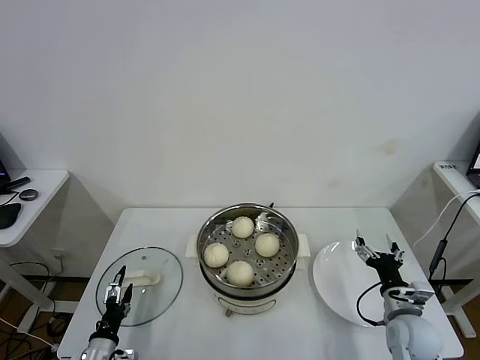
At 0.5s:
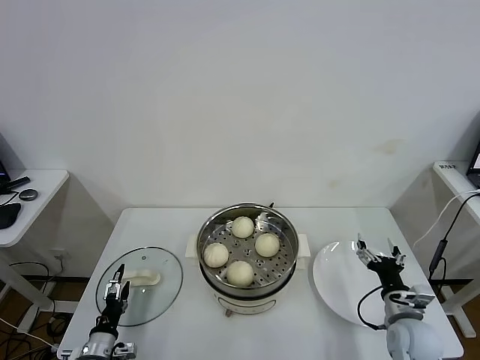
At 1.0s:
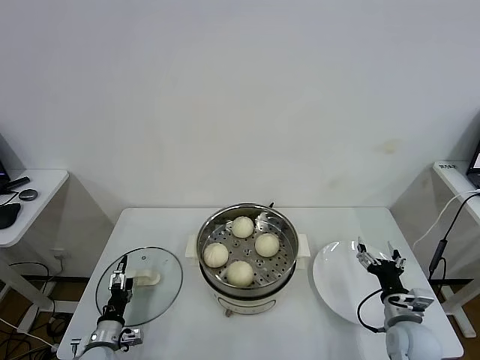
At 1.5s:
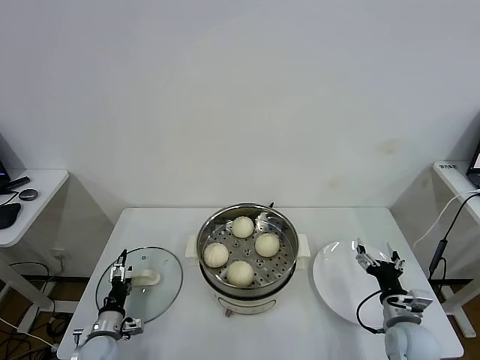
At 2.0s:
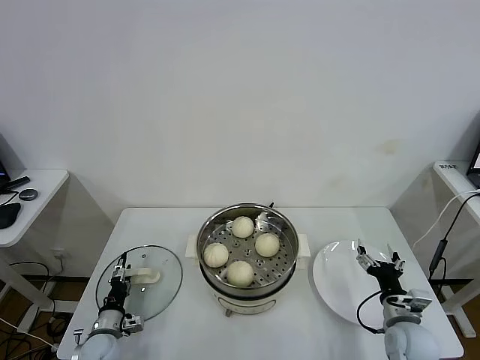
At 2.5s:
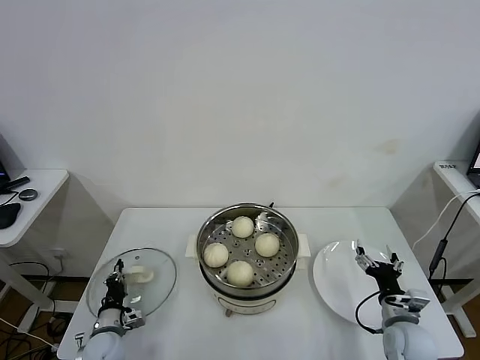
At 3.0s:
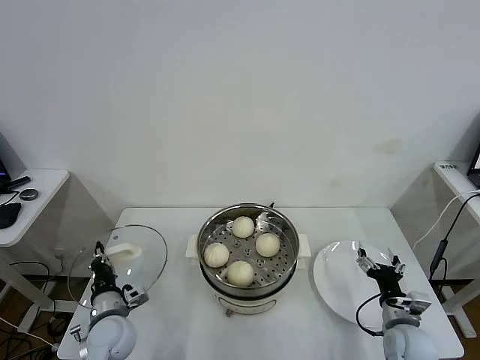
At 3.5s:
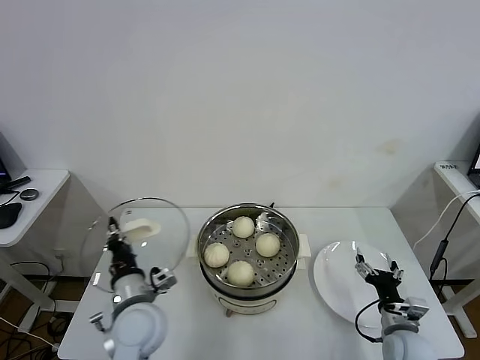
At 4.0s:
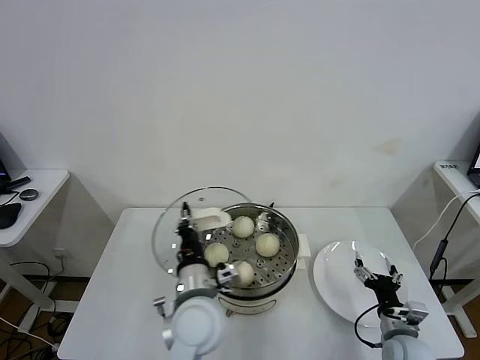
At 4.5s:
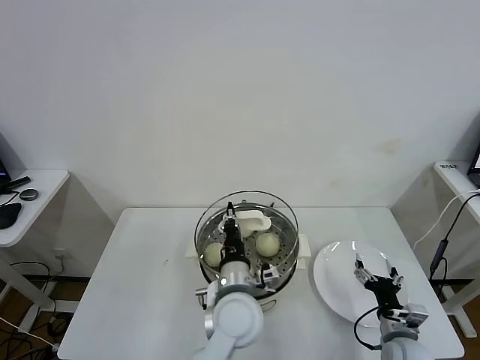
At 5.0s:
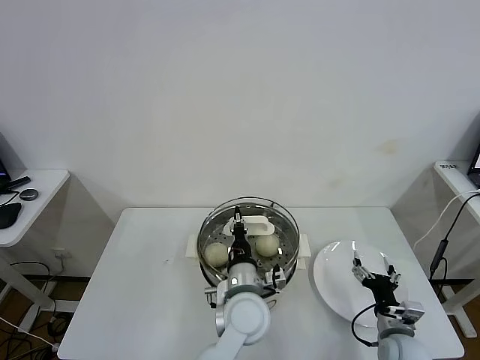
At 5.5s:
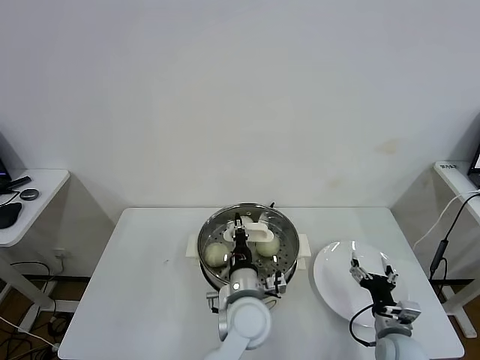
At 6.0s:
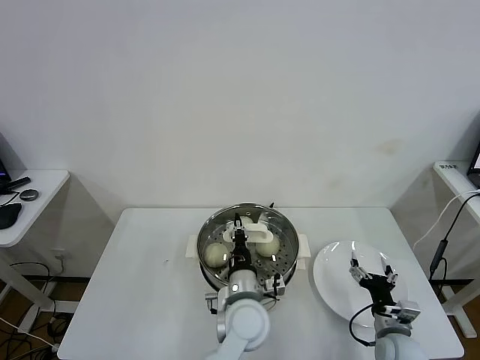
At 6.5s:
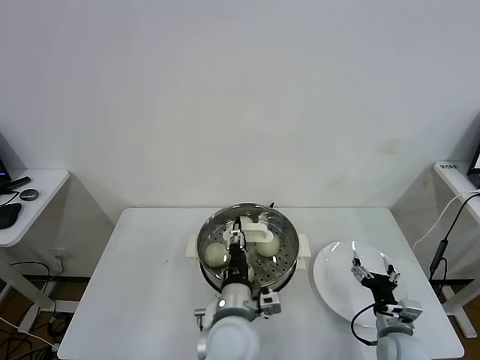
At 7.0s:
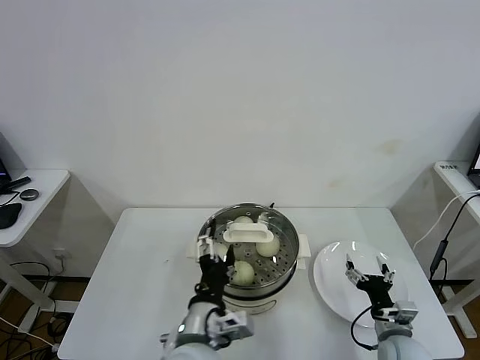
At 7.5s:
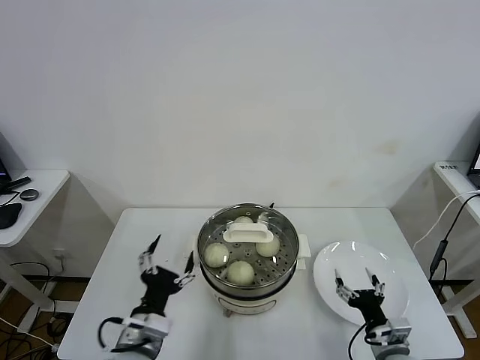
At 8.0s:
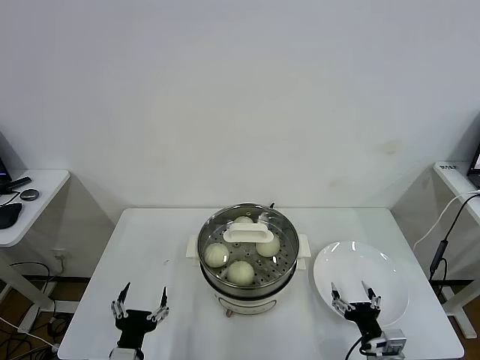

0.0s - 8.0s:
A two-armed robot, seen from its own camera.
Task of the whole recording: take steamed baozi put them in steamer.
Step, 0.0s - 2.5s: Grasp the pot lid with left gripper.
Step, 3.0s - 7.0s: Place the pot lid on the steamer with left gripper.
0.0s - 2.0s: The left gripper is displaced forward by roughly 10 cm.
2.0s - 4.0s: The left gripper travels to the right and upward by roughly 35 cm, and closes its fingers.
4.0s - 6.0s: The left gripper goes roughly 10 cm to the right and downward.
6.0s - 8.0s: The right gripper is displaced backward by some 5 cm; the left gripper goes some 30 cm to the left and backward, and opens up.

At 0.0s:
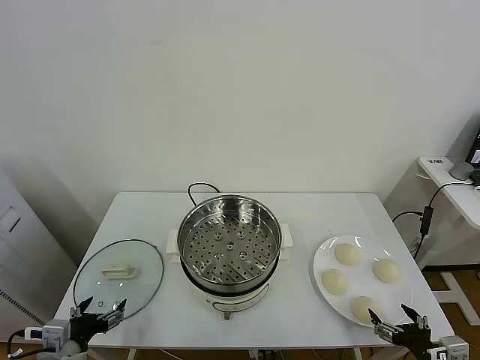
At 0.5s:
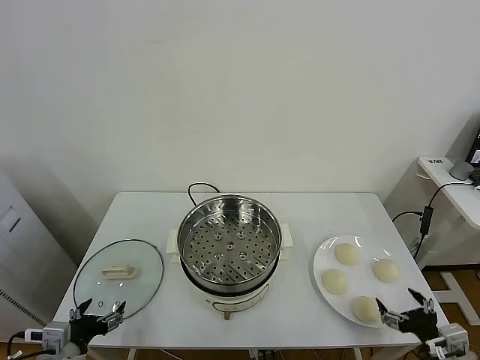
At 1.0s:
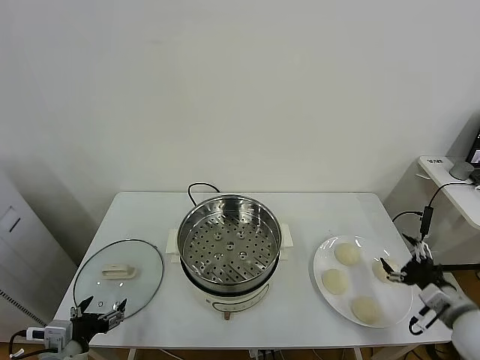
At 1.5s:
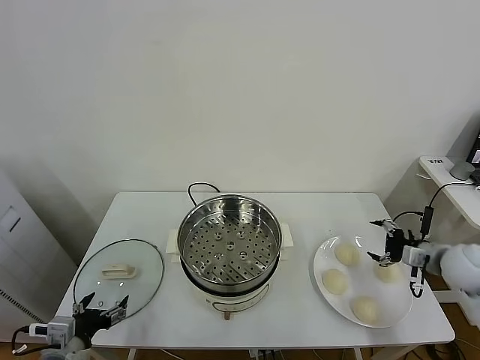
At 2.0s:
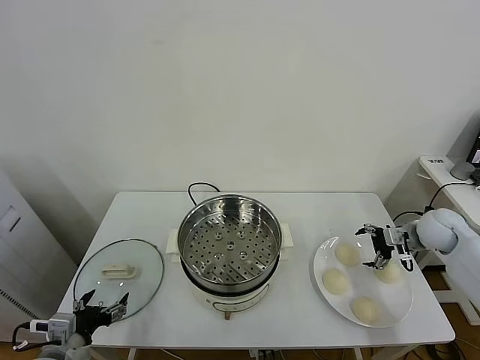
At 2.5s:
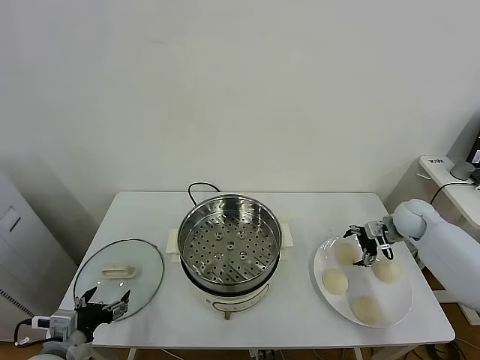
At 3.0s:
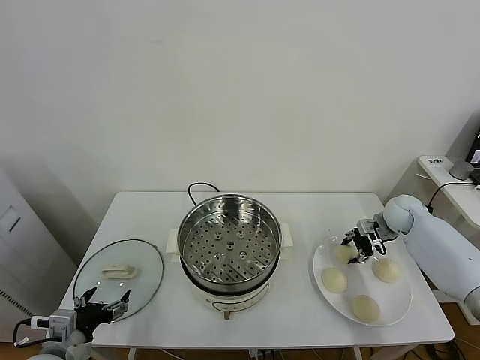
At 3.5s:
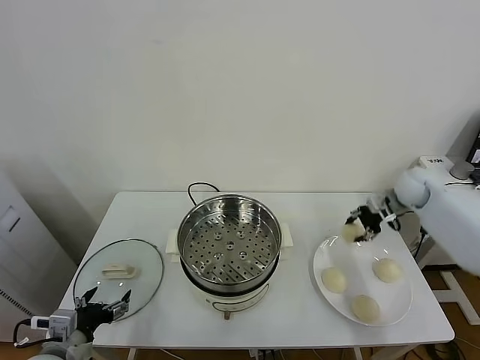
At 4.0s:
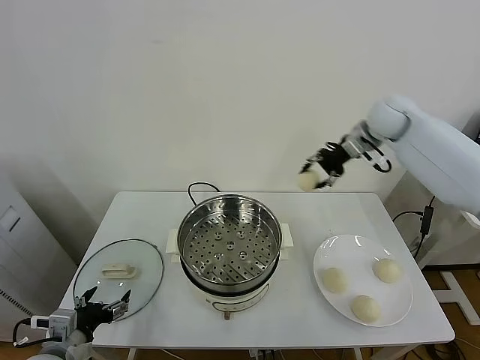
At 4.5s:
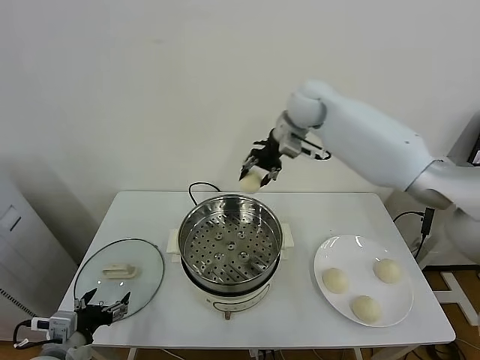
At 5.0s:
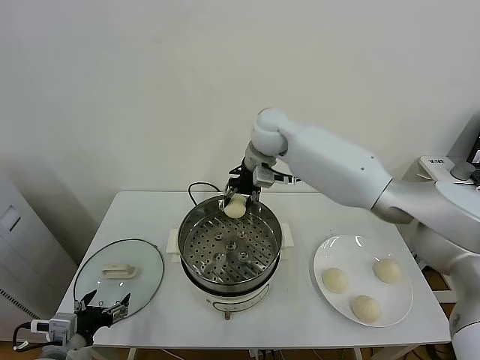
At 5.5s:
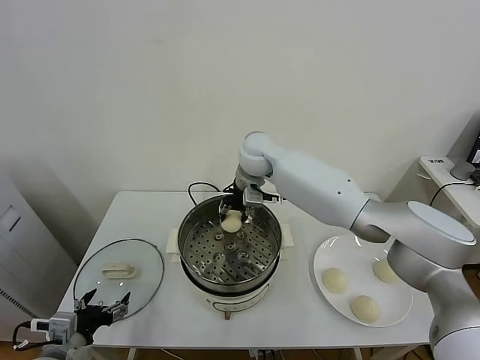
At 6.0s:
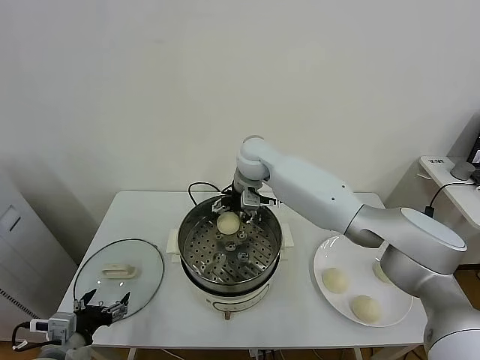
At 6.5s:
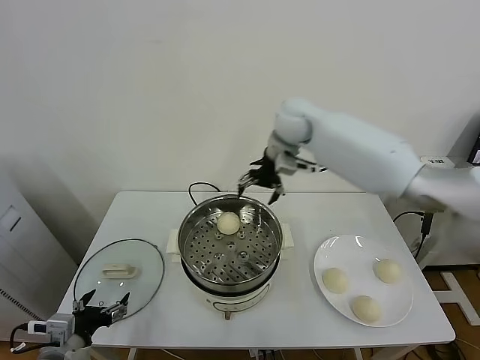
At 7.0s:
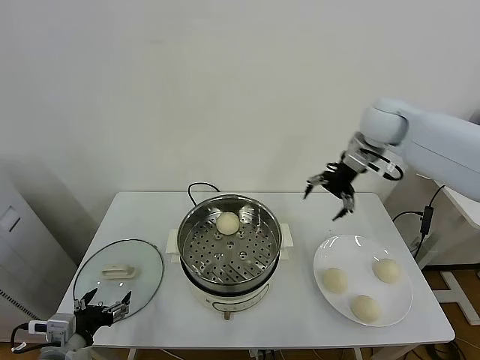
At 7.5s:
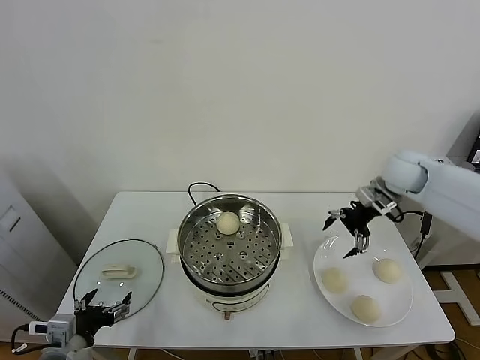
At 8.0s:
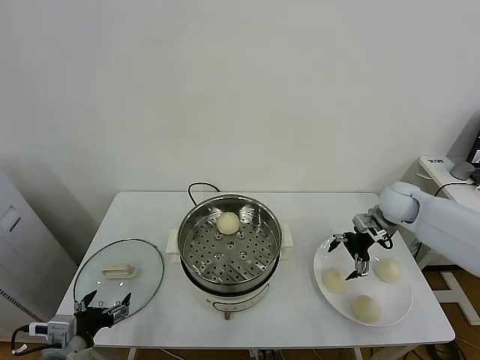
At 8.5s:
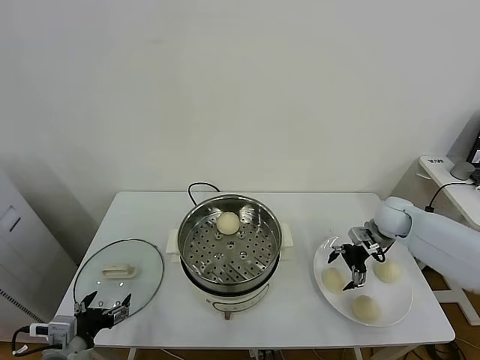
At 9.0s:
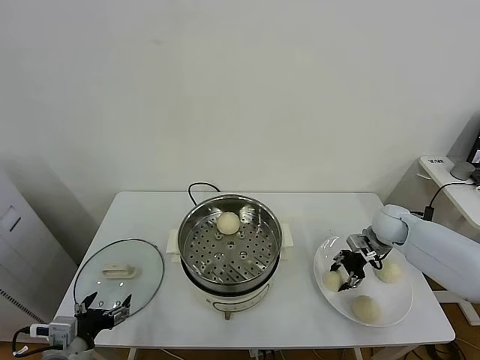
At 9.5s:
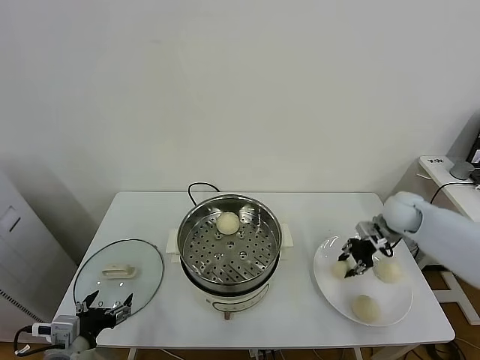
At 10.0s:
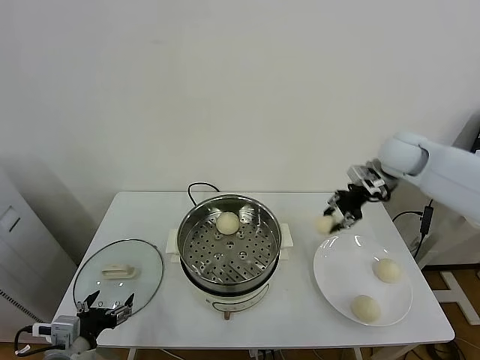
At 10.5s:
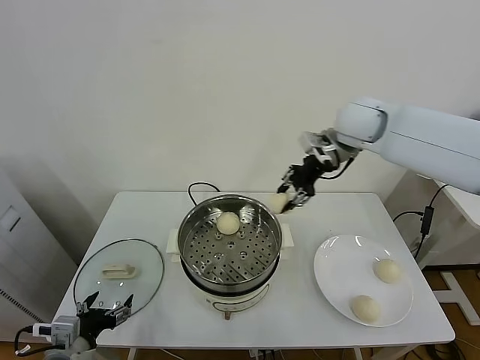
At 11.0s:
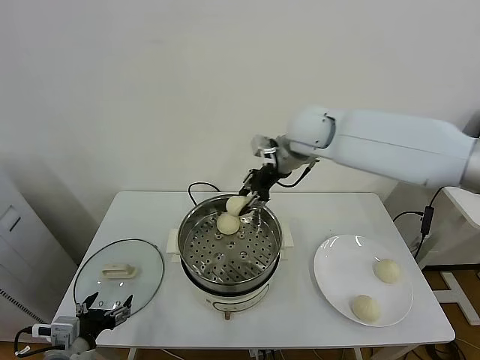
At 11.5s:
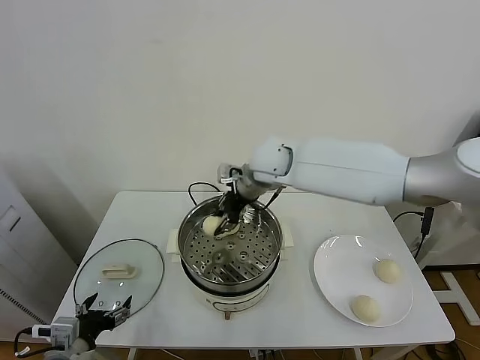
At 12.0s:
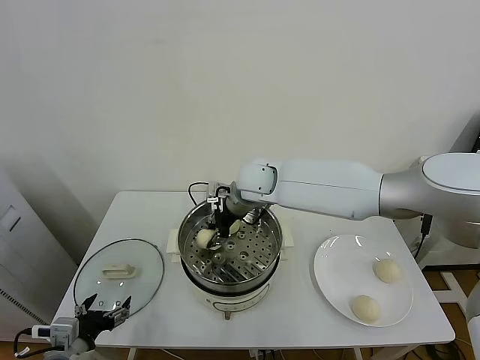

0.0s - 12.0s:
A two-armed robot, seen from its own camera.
Task of the whole recording: take steamed baozi put them in steamer.
Step, 0.0s - 3.0s: Grasp the baozi in the plate with right gripper.
Step, 3.5s - 6.0s: Place the baozi on the steamer with right gripper.
Step, 6.5s - 9.0s: Grasp the baozi in the plate with right gripper.
2.0s - 4.0s: The right gripper moves upward, to the left and forward, approximately 35 cm, and closes up.
4.0s - 6.0s: The right gripper moves to the left and downward, about 25 cm, and opens up.
6.0s - 8.0s: The right gripper travels to the right by about 35 cm.
8.0s - 10.0s: The right gripper travels upward by roughly 15 cm, and closes up.
10.0s - 12.0s: The right gripper moves to the left, some 30 cm.

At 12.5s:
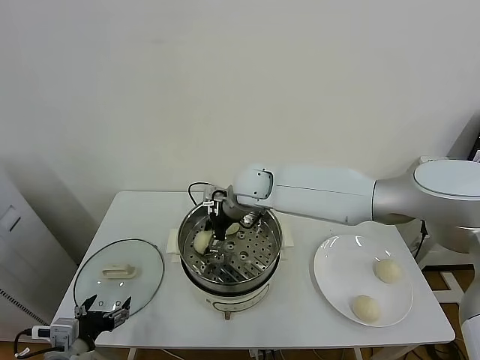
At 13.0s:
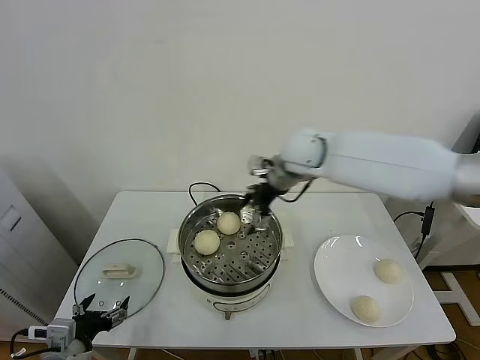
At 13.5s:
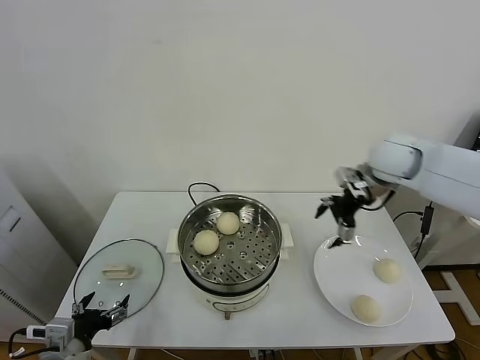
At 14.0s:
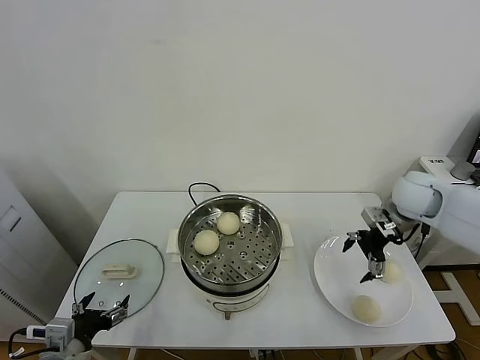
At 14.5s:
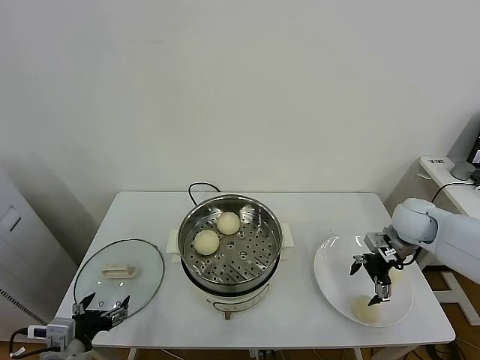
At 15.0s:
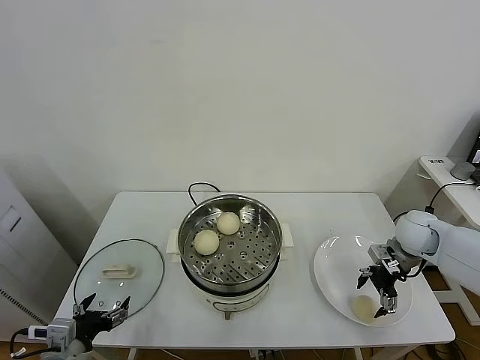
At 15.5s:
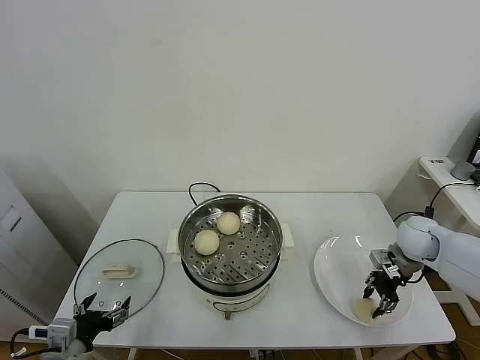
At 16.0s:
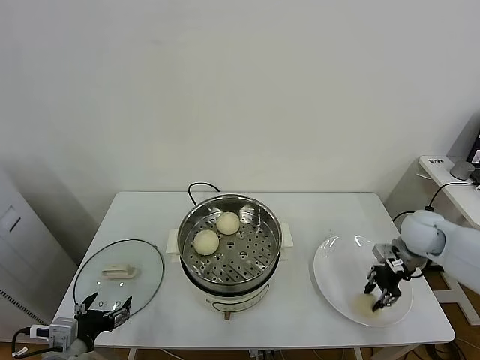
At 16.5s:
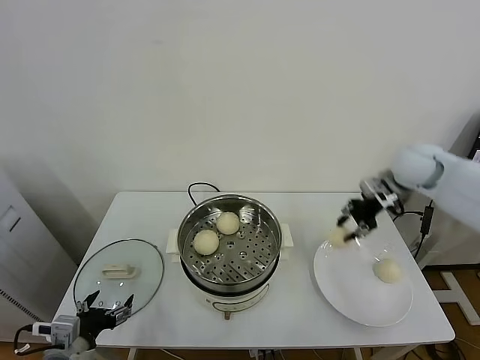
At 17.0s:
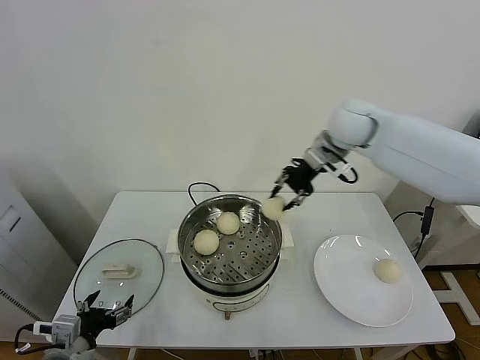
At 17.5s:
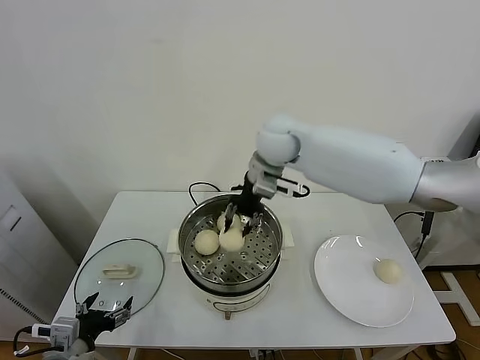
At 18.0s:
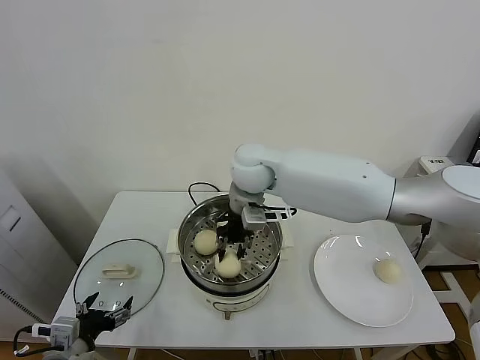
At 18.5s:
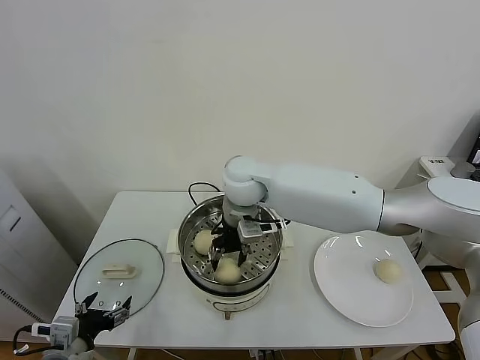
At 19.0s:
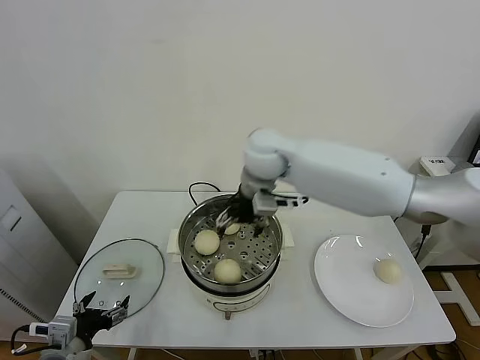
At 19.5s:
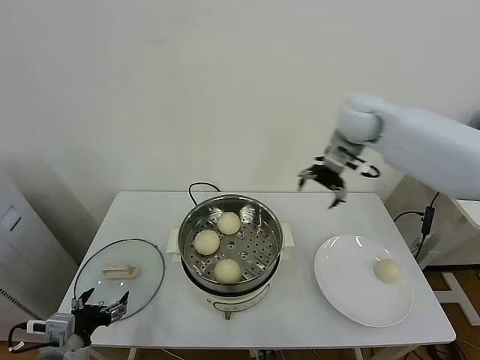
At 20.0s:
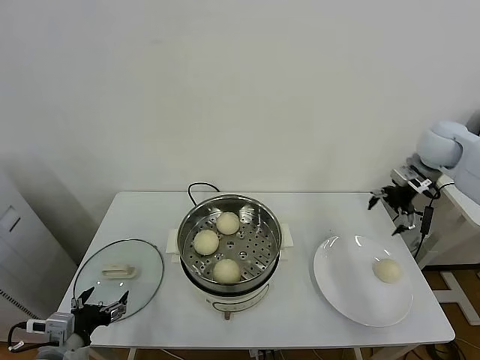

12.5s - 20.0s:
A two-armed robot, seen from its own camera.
Task of the whole recording: take steamed baozi put them in steamer.
Step, 13.0s - 15.5s: Grasp the baozi in the plate with right gripper.
Step, 16.0s - 18.5s: Place the baozi on the steamer with right gripper.
12.5s - 14.5s: The right gripper heads to the right, covering approximately 35 cm.
14.5s - 16.5s: The right gripper goes some 15 cm upward, and closes.
16.5s - 18.0s: The right gripper heads to the left, covering about 35 cm.
18.0s - 20.0s: The right gripper goes roughly 40 cm to the right, and opens its fingers.
